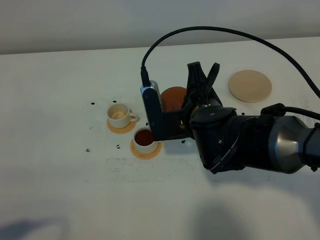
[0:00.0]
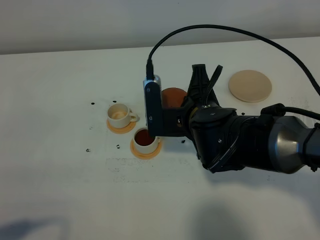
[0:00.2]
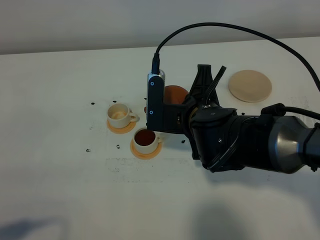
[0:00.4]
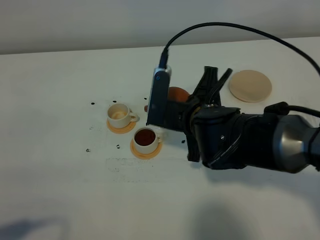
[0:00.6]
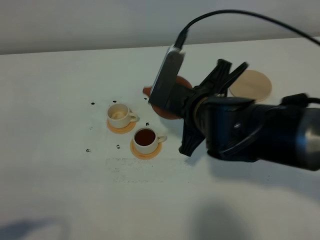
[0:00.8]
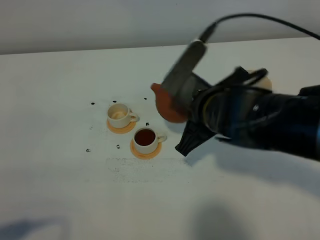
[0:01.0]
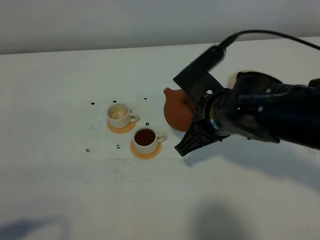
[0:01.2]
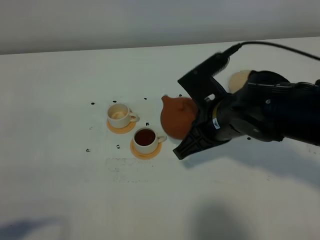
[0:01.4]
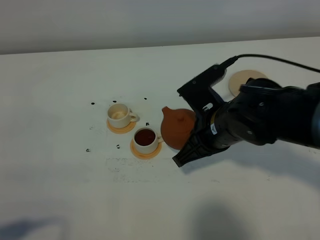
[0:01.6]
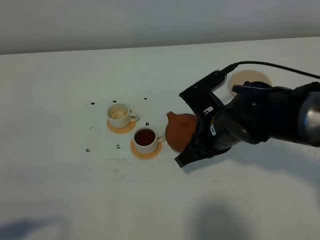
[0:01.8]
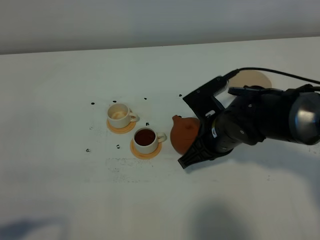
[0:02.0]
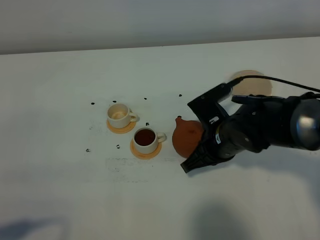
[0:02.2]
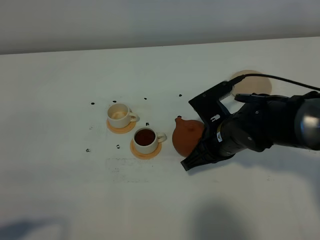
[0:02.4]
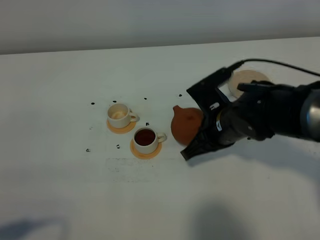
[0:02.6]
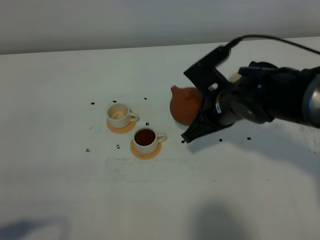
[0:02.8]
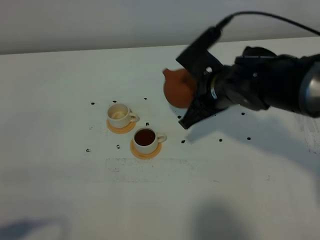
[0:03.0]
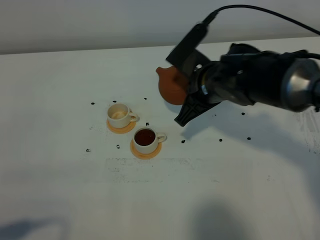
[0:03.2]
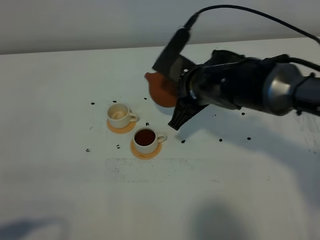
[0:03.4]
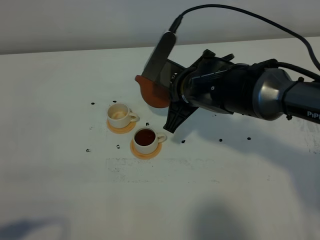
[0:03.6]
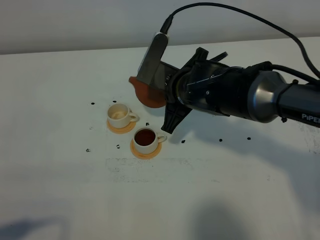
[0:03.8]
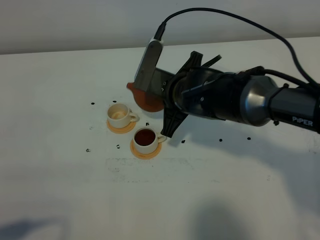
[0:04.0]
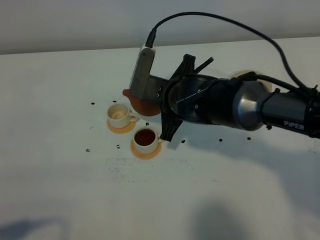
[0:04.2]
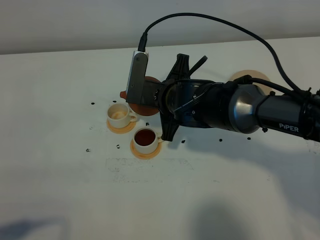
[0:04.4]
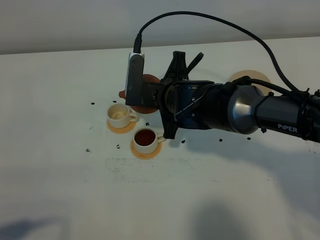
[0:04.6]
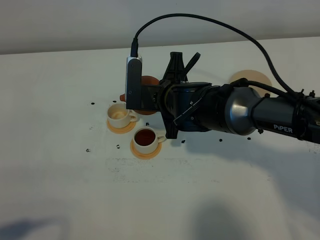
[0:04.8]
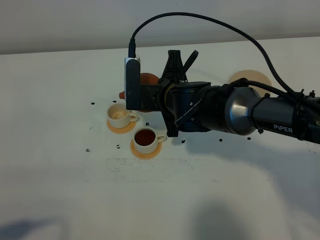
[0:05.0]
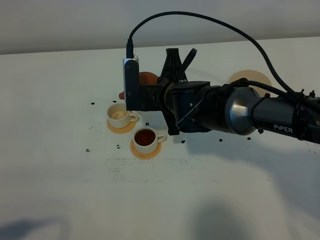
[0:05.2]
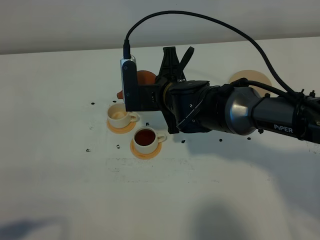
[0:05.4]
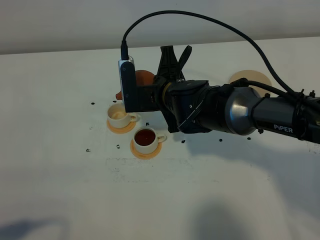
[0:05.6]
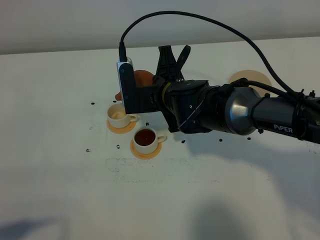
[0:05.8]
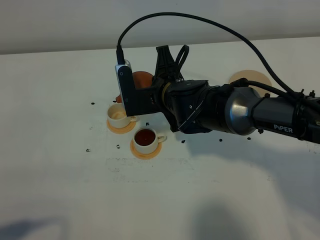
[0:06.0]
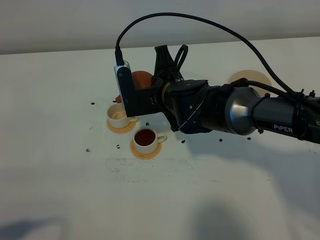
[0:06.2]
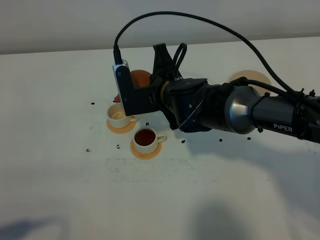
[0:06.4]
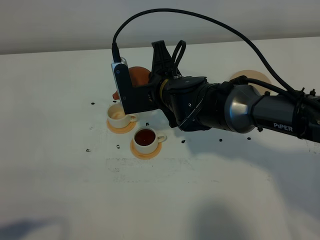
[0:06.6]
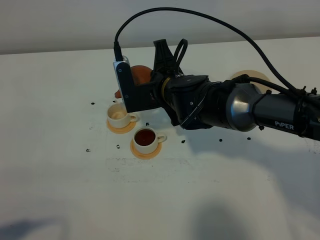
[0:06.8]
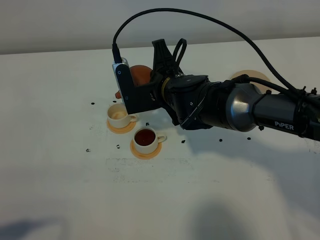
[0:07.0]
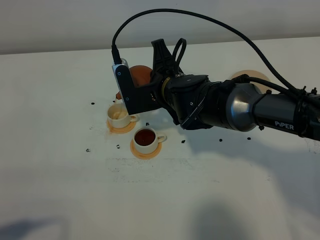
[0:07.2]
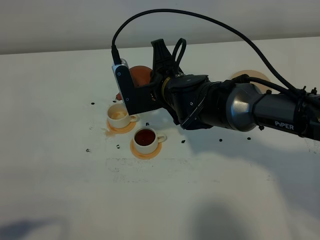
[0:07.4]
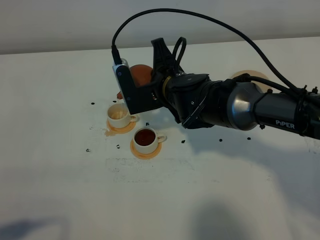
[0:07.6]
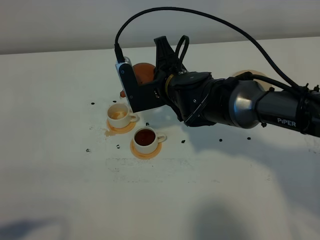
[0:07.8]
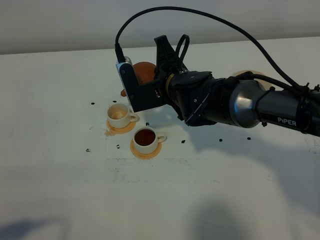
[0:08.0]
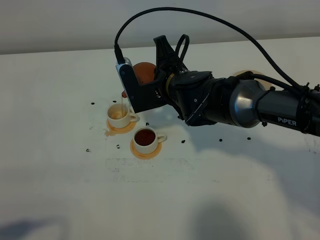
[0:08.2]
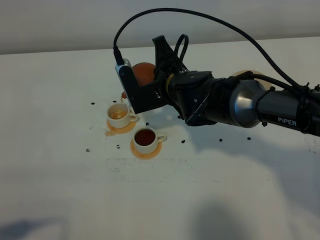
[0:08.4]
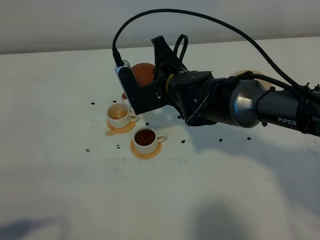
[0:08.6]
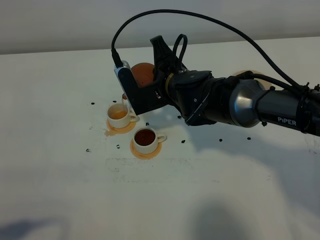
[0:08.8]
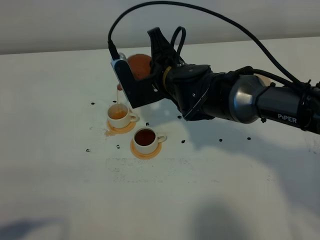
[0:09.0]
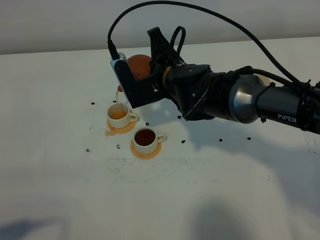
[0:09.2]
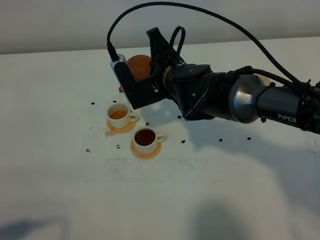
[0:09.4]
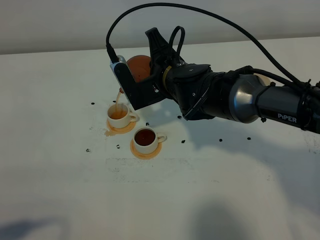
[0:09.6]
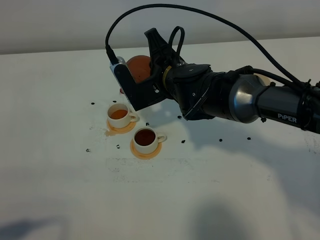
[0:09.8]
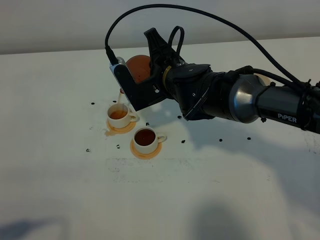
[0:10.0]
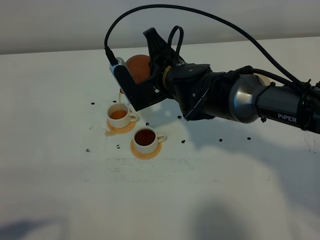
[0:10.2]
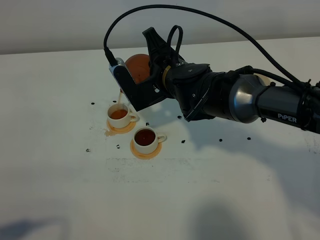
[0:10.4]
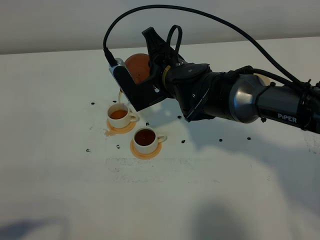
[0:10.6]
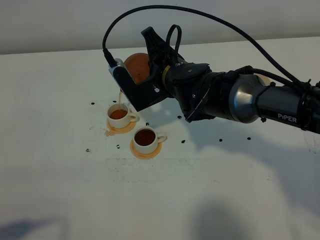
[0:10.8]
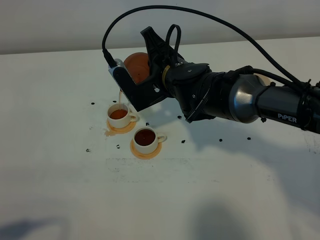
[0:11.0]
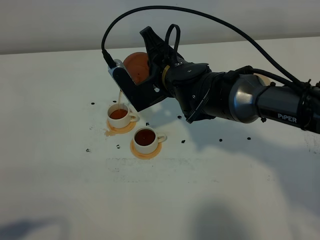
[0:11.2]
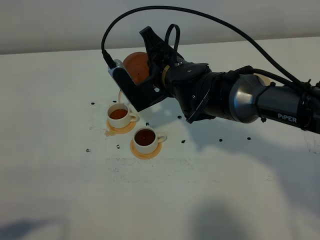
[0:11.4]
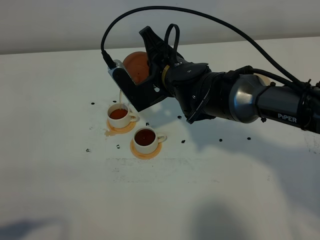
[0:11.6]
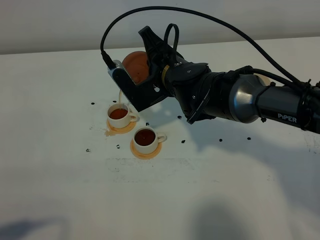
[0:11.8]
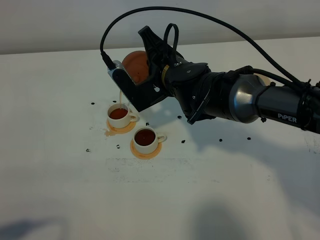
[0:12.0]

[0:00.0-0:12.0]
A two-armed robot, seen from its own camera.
Task of the whole recording: grasp the brown teapot and pour the tea into the two white teacups one by one, put the brown teapot back in its original place.
0:01.6 to 0:03.0: The right gripper is displaced forward by about 5 cm.
0:03.0 to 0:04.4: The right gripper travels to the left by about 5 cm.
0:06.0 to 0:09.0: The grippers stay close to where they were, moving slightly.
0:09.0 to 0:12.0: There are only small adjustments of the grippers.

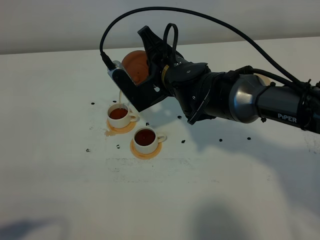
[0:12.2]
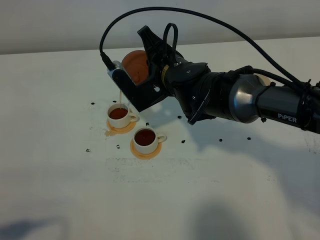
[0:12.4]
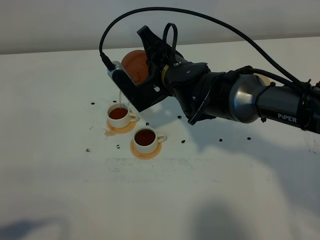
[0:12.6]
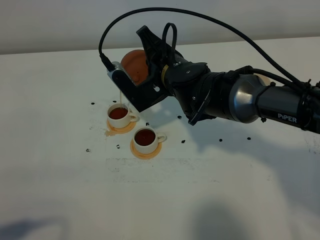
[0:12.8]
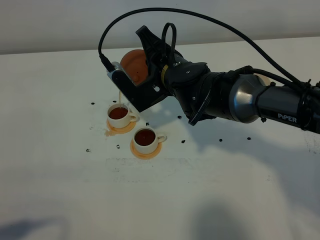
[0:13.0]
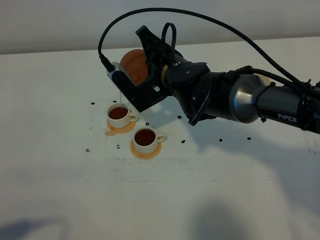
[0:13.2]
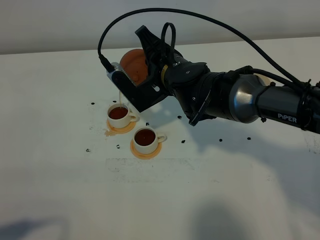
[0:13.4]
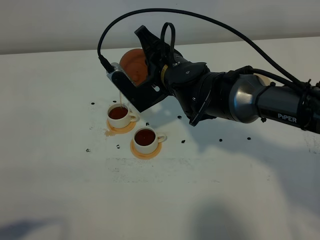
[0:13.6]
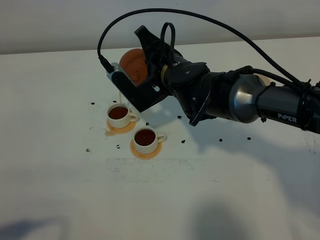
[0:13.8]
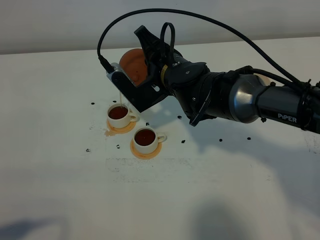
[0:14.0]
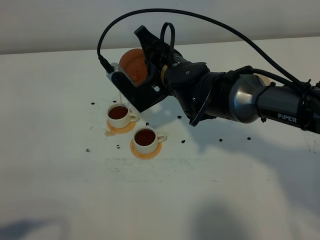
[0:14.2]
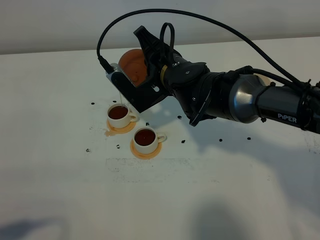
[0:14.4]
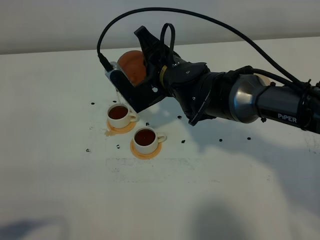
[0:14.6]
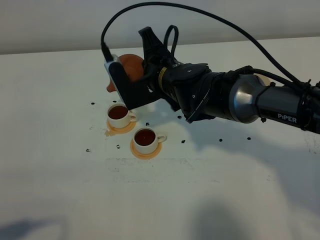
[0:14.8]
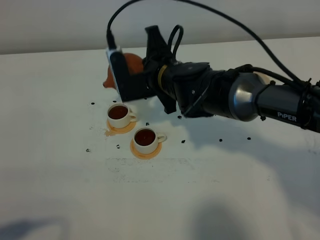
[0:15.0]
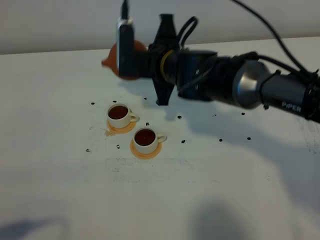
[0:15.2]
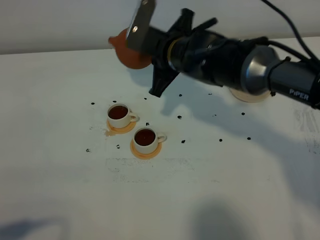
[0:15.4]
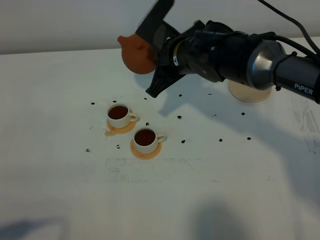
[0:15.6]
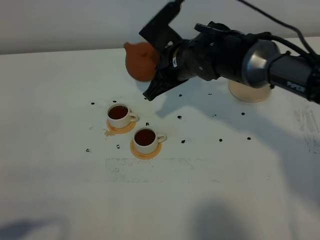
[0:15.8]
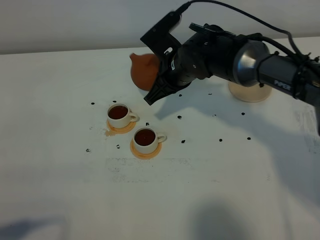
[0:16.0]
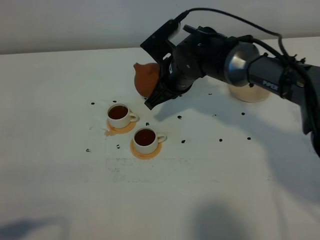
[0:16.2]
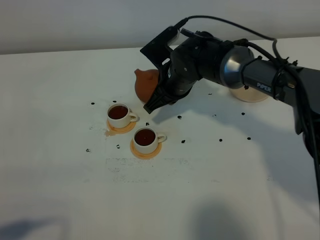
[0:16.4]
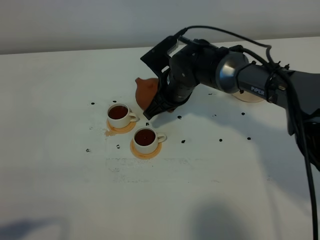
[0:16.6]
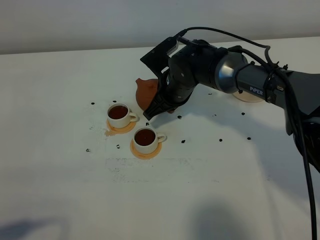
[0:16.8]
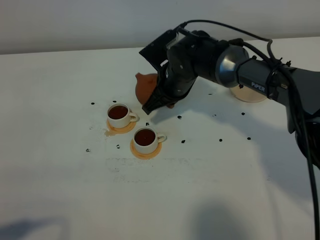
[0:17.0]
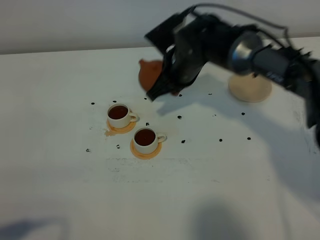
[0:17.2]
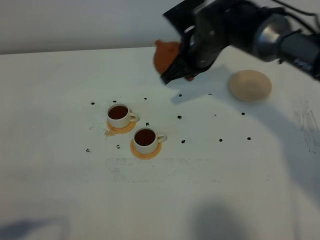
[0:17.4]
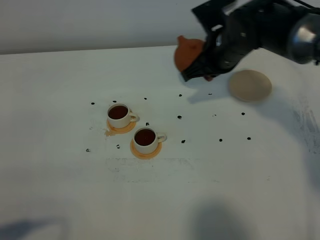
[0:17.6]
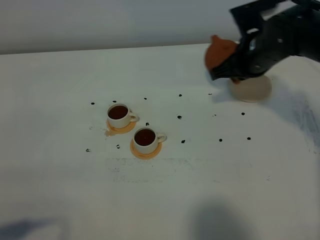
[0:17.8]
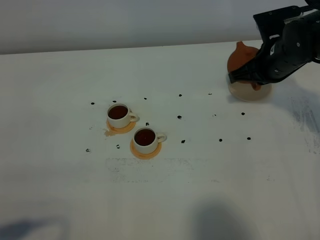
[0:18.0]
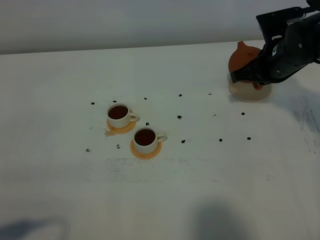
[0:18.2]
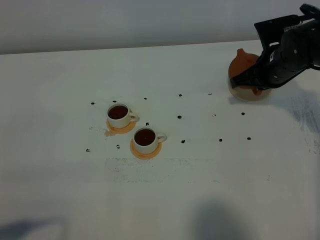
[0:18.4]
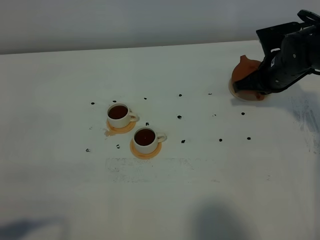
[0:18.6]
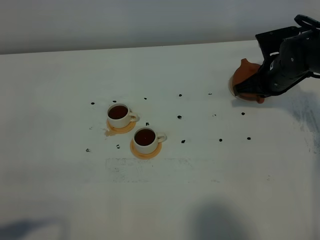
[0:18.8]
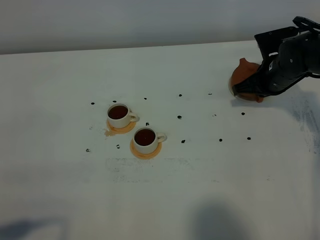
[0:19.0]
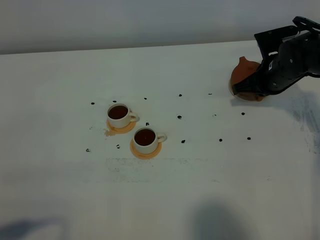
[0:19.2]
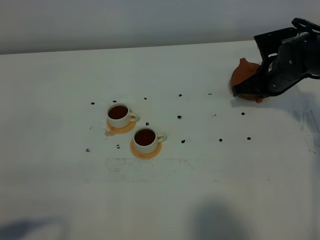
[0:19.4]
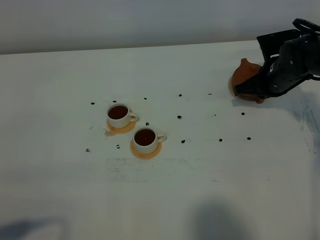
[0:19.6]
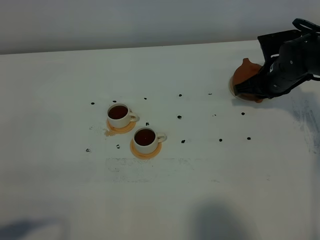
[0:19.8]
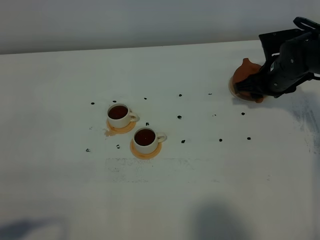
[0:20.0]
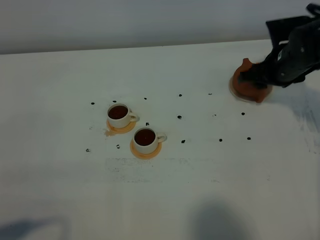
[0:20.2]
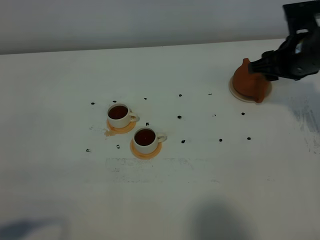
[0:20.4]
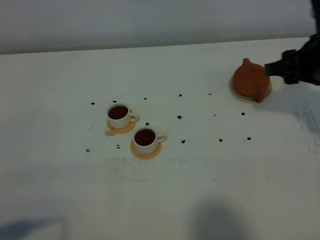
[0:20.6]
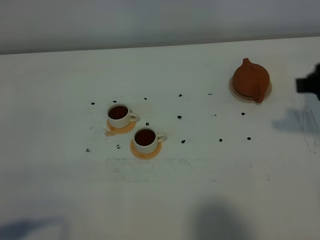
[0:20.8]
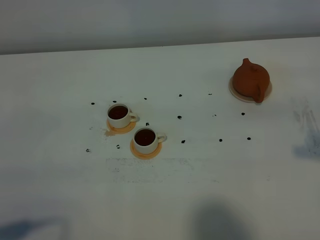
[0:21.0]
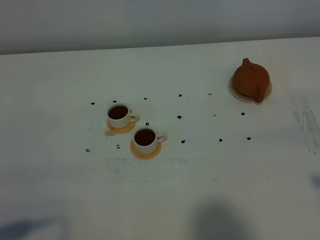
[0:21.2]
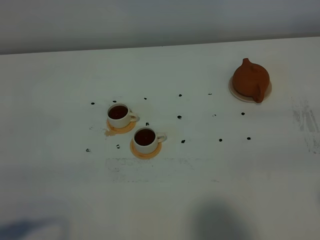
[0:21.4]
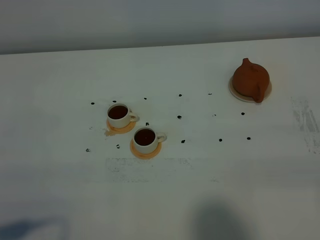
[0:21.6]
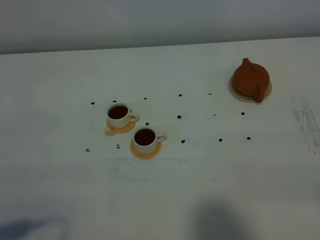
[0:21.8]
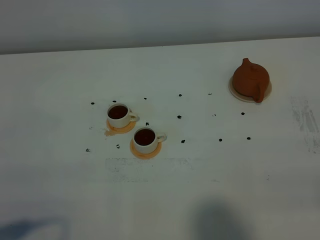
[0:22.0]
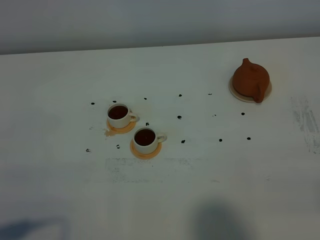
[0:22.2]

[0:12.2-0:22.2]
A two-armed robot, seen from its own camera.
Task of the whole recording: grasp the brown teapot and pour the tea into the two white teacups one by one, put the brown teapot back in its original place.
Step, 0:12.2 to 0:15.0: Pour tea into the teacup with the right gripper.
0:12.2 to 0:13.6: The two grippers keep their place.
0:15.0 to 0:16.4: The right gripper shifts some 5 cm downward.
0:16.4 to 0:18.0: The right gripper shifts some 20 cm to the right.
0:18.0 to 0:19.4: The right gripper is displaced downward by roughly 5 cm.
0:19.4 to 0:20.8: The right gripper is displaced backward and upward by approximately 25 cm, and opens.
0:20.8 to 0:22.2: The right gripper goes roughly 20 cm backward.
